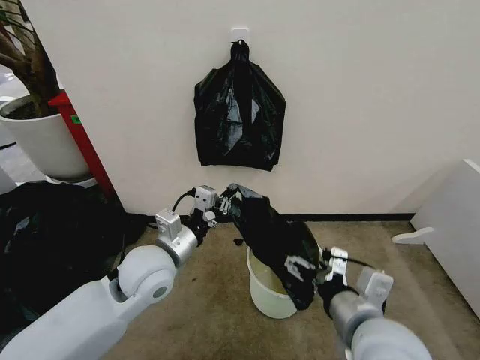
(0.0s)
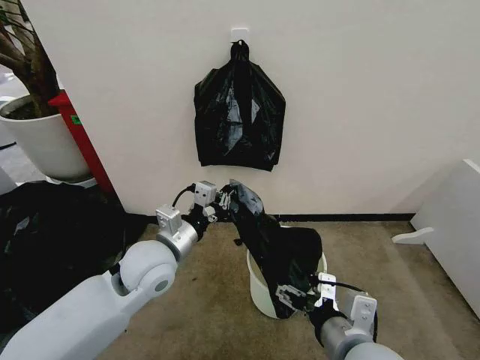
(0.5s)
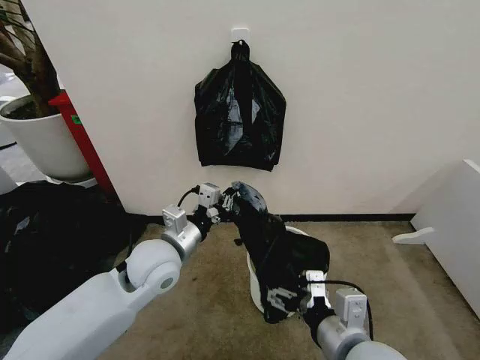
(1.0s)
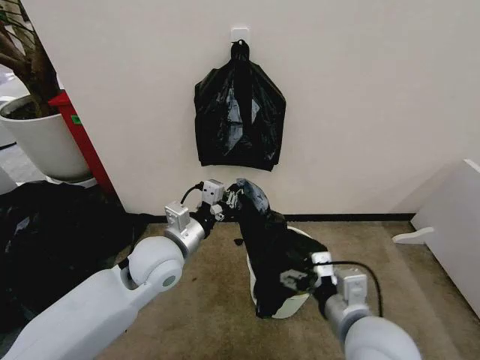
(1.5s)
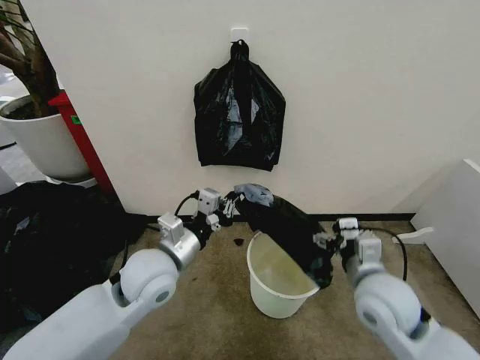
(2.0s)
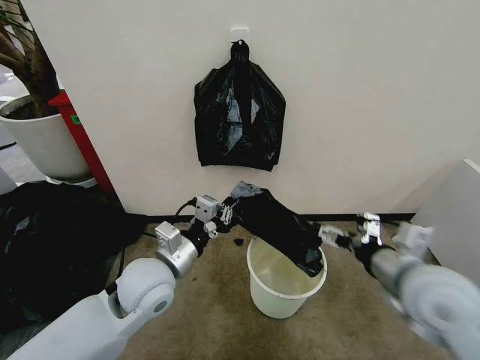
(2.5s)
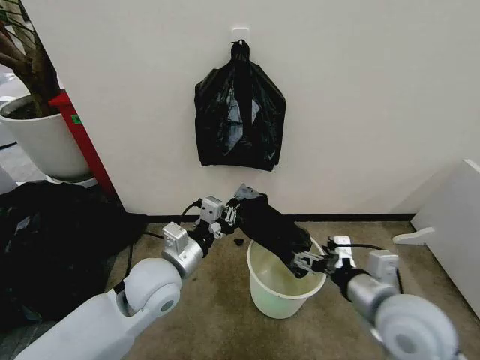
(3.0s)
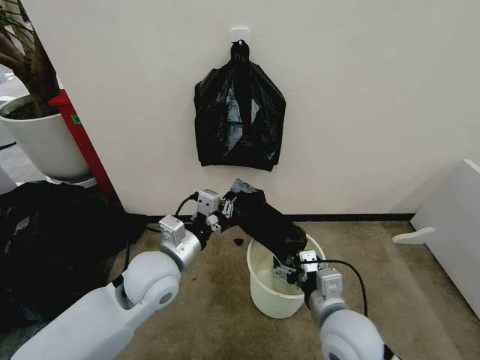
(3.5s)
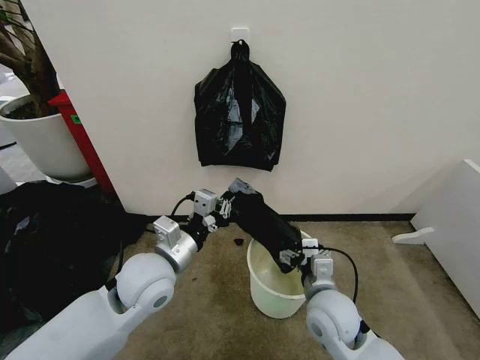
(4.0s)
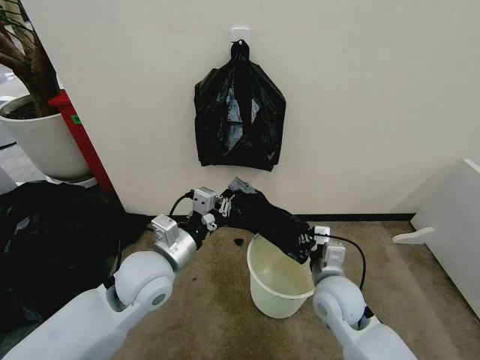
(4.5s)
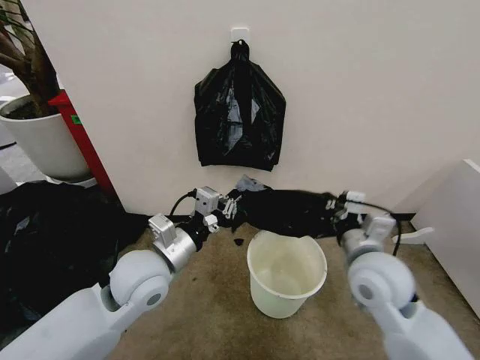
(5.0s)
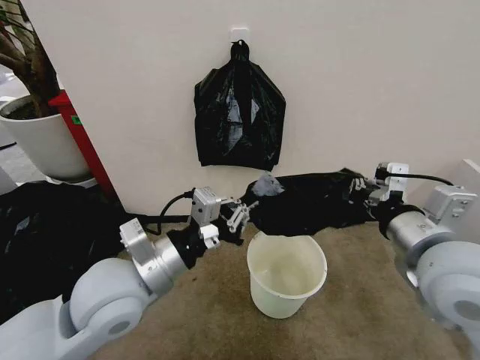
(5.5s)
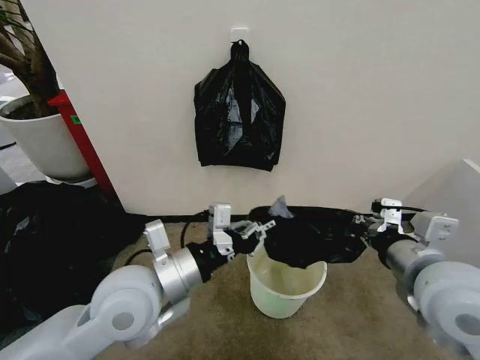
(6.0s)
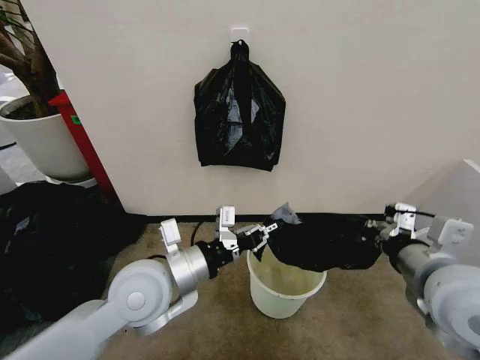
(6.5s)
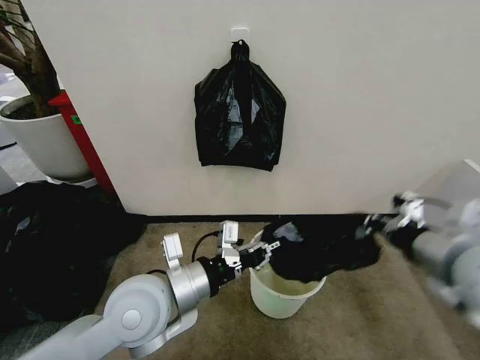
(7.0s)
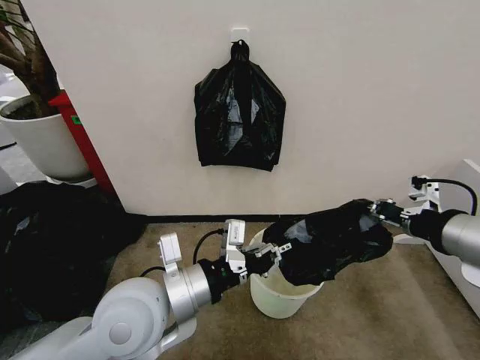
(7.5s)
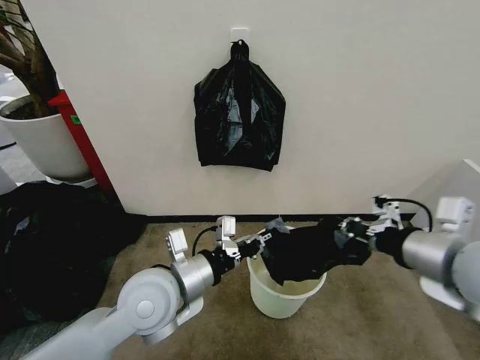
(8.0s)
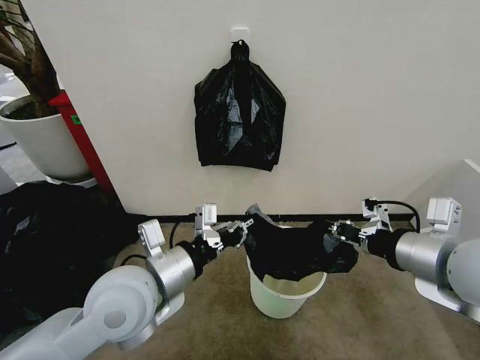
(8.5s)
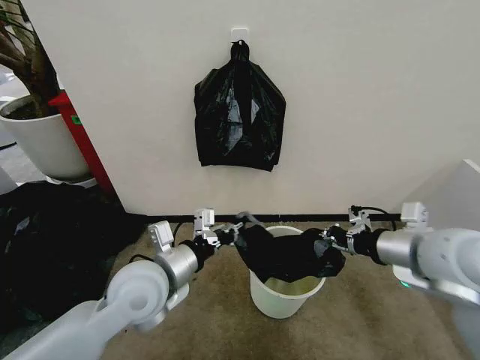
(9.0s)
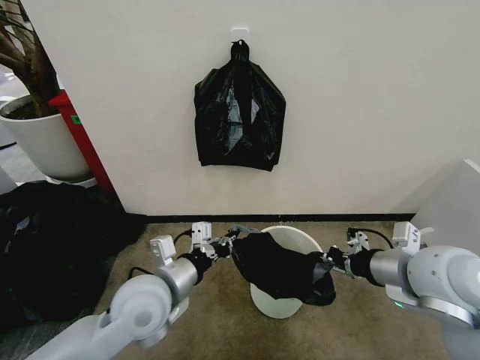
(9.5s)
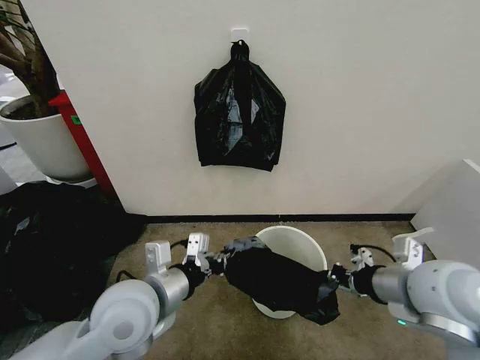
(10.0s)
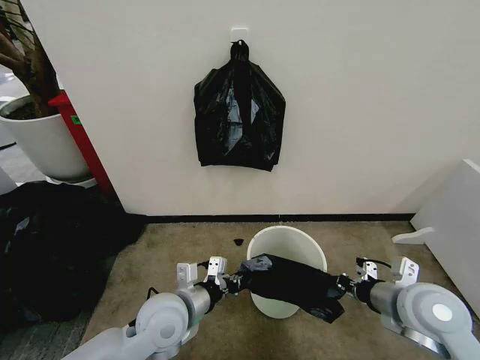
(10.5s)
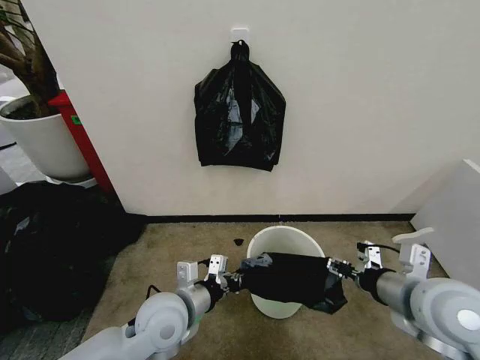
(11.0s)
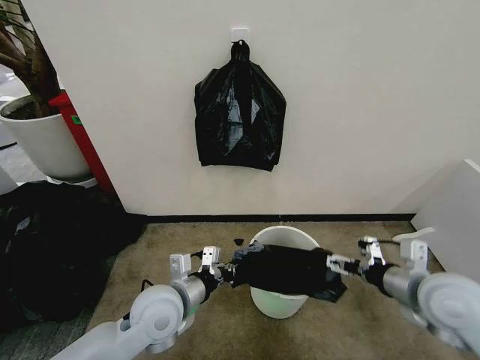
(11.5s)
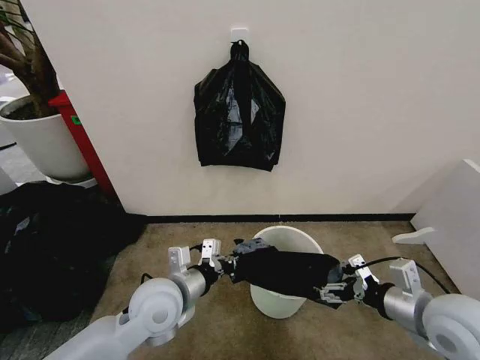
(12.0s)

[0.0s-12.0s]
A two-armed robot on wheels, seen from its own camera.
Task of the whole recording: Place the garbage bag over the trash bin.
0.0s to 2.0s: The right gripper heads forward and to the right, covering approximately 10 cm.
2.0s to 4.0s: The right gripper goes roughly 10 cm to the left and downward.
4.0s to 6.0s: The right gripper heads upward and to the right, covering approximately 20 cm, and closes up. The left gripper heads upward and backward, covering some 10 cm.
8.0s to 10.0s: The right gripper moves downward, approximately 10 cm.
10.0s to 12.0s: The left gripper goes some 5 cm downward. Meanwhile the right gripper moves up and down over about 10 cm, changing direction 2 times, and opens up.

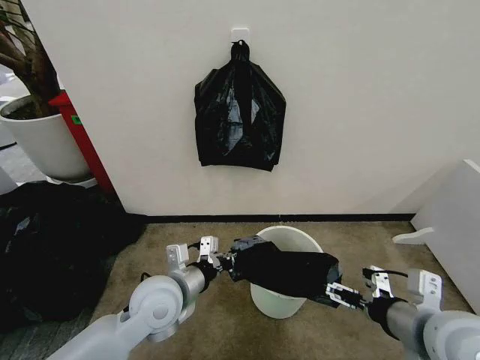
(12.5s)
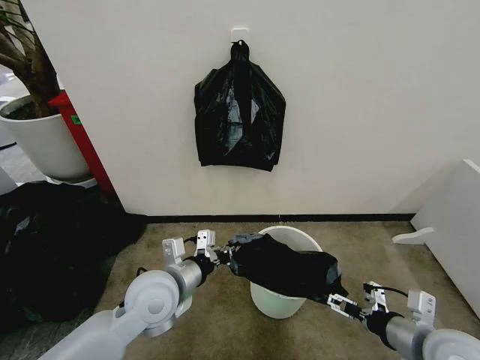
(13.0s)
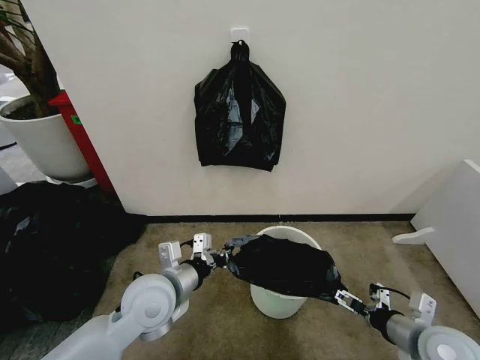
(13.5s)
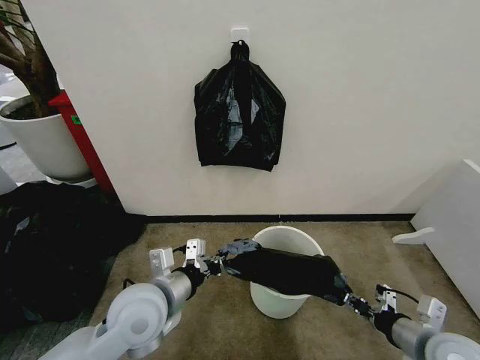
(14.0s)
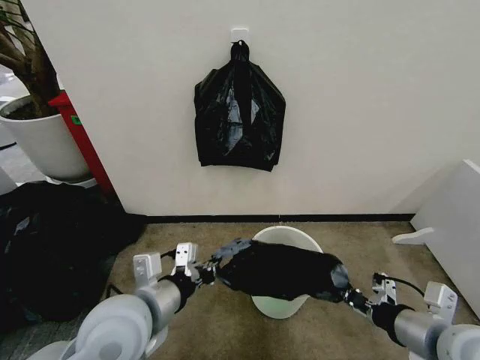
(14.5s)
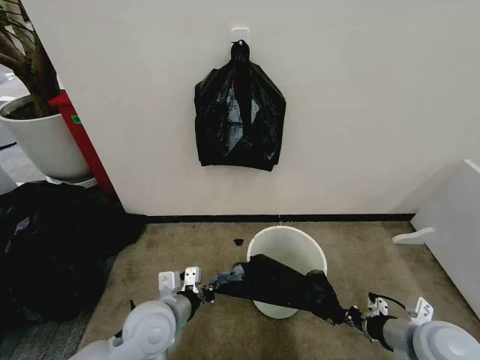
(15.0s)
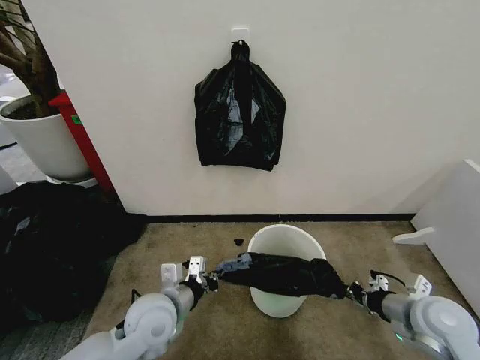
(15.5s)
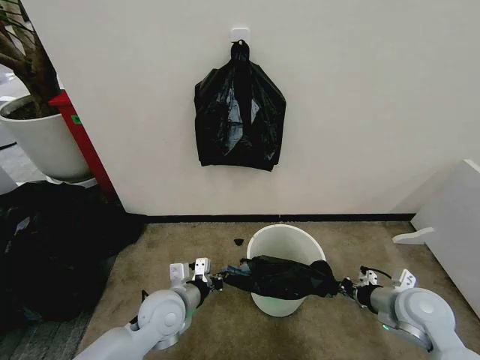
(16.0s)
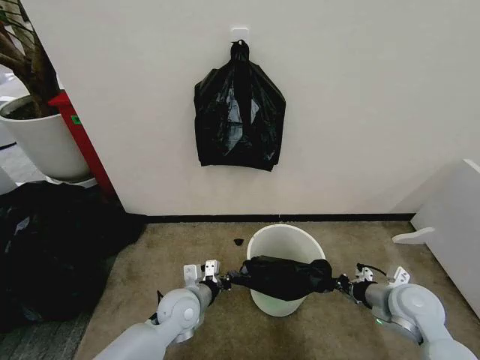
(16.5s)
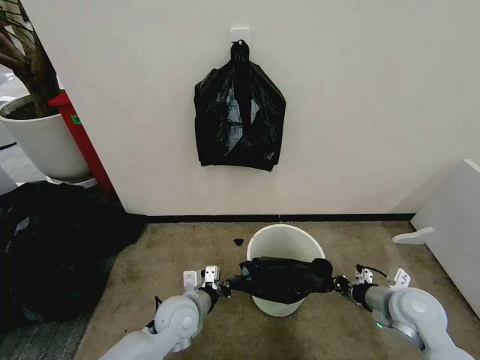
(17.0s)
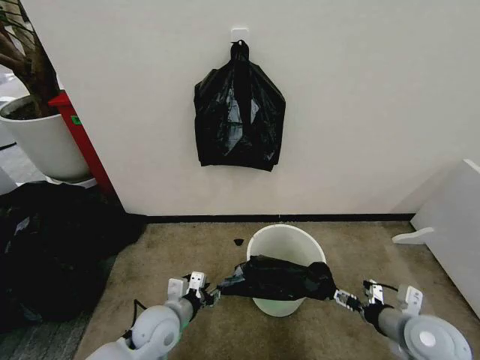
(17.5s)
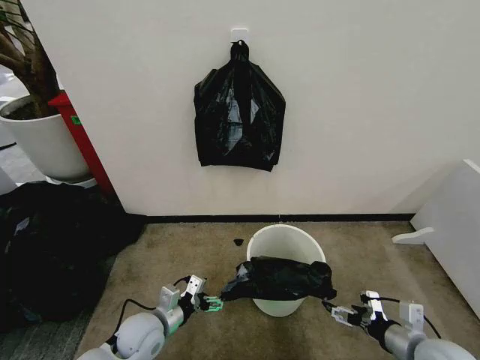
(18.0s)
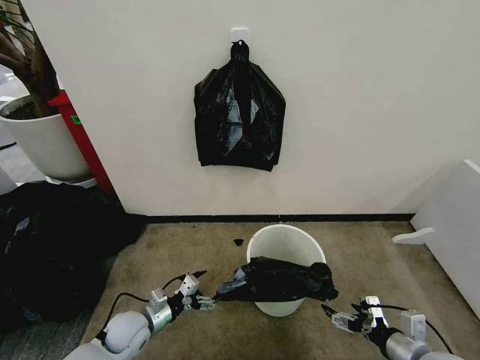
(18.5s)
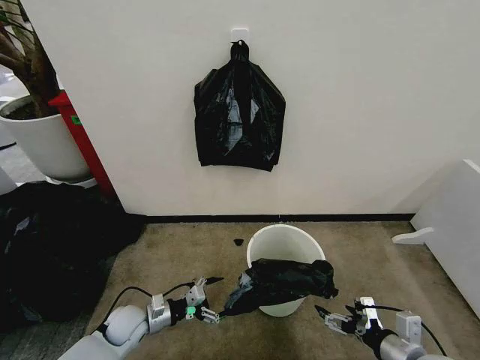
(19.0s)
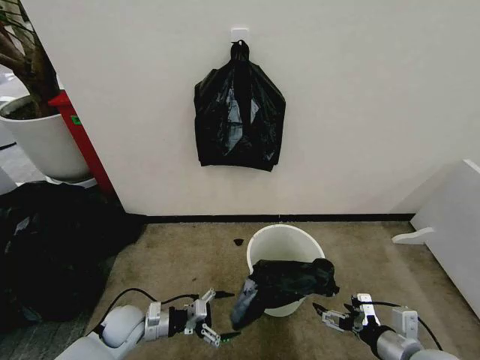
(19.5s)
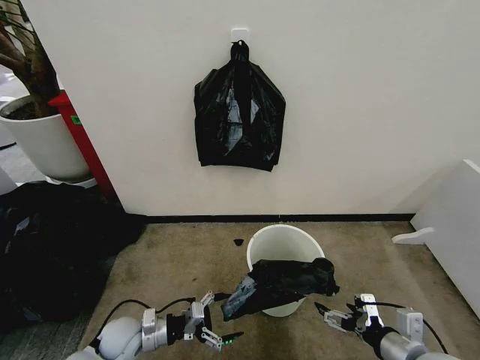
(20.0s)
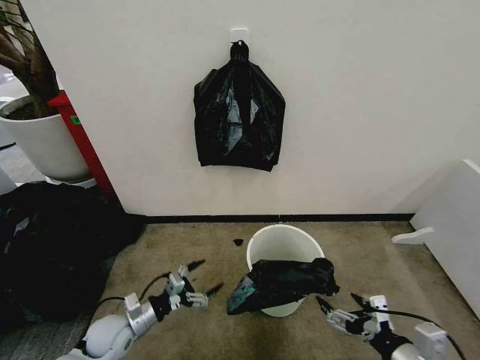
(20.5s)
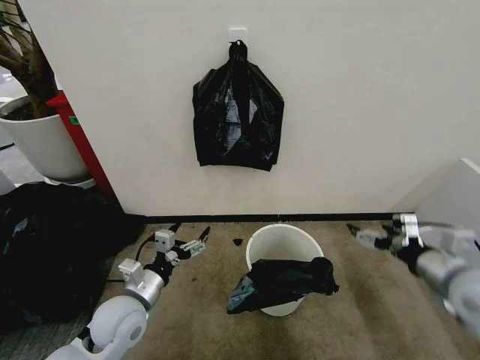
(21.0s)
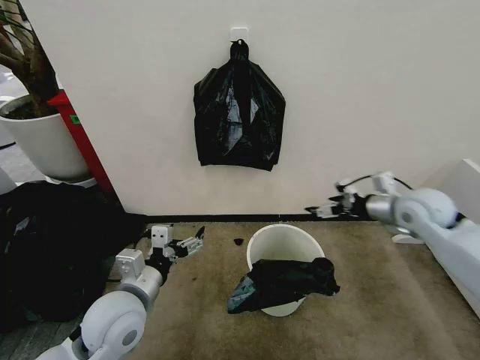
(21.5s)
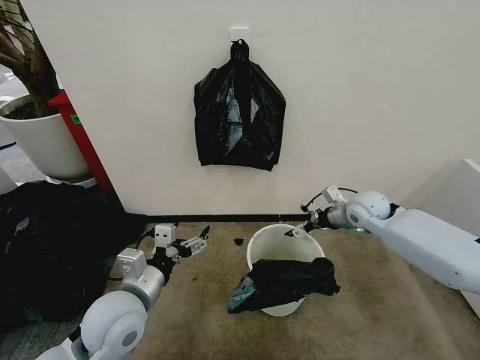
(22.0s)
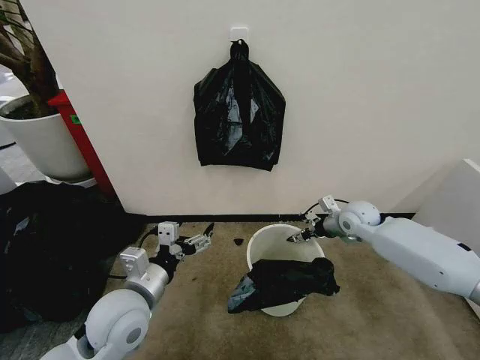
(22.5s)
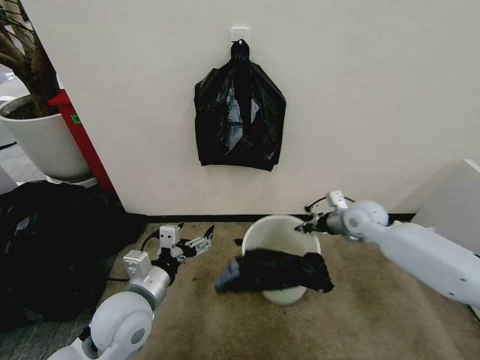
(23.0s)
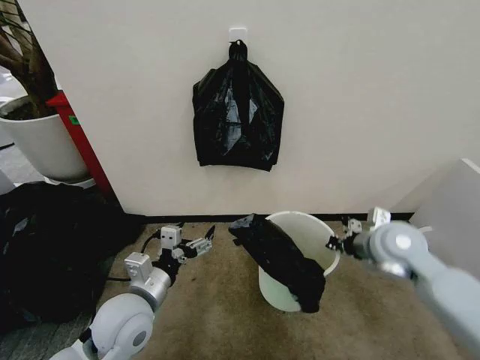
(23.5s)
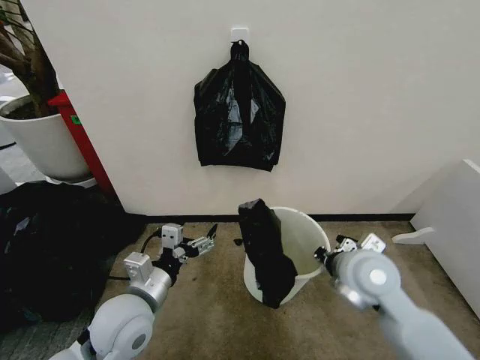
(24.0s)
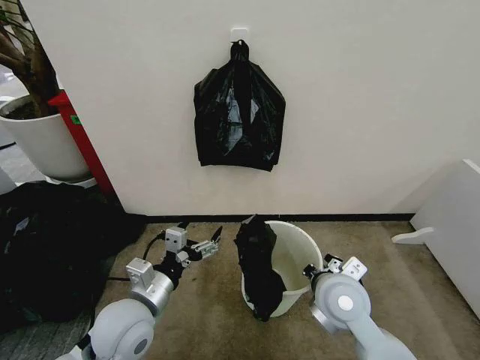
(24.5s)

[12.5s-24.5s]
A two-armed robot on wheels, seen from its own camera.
Task of the whole recording: Place the garbage bag over the trash bin.
12.5s to 14.5s: The left gripper moves upward and backward, approximately 10 cm, while the right gripper reaches some 15 cm downward, then returns, and closes up.
14.5s to 16.5s: The two grippers go about 20 cm downward and forward.
16.5s to 18.5s: The right gripper heads backward, covering approximately 10 cm, and opens. Meanwhile the left gripper moves to the left and downward, roughly 15 cm, and opens its fingers.
18.5s to 20.5s: The right gripper moves upward, roughly 10 cm.
20.5s to 22.5s: The right gripper is displaced forward by roughly 40 cm, and closes its fingers. Meanwhile the left gripper heads upward and to the right, covering roughly 20 cm.
22.5s to 24.5s: The right gripper goes approximately 25 cm backward and to the left, and closes.

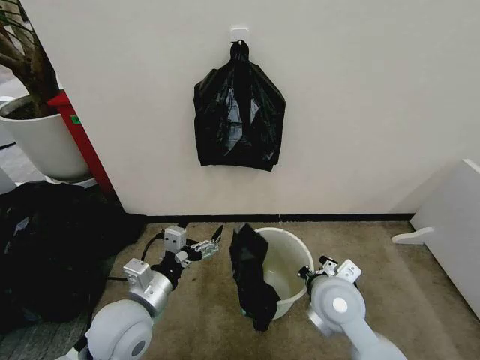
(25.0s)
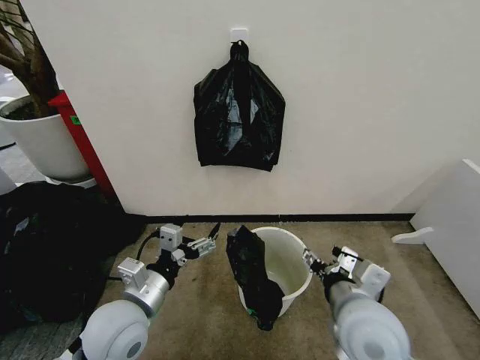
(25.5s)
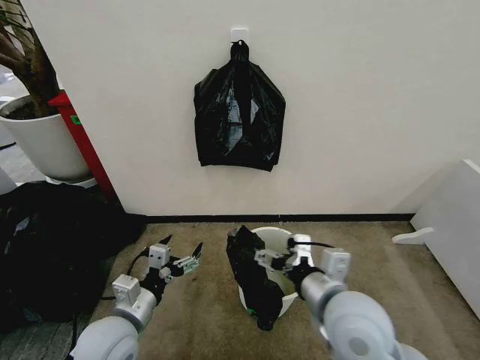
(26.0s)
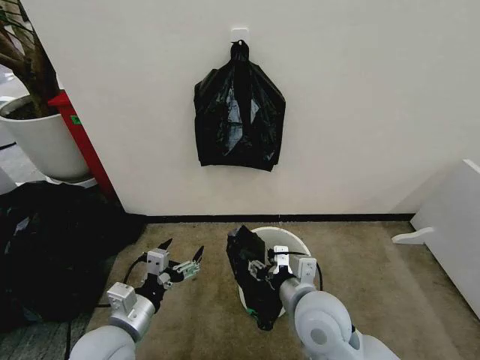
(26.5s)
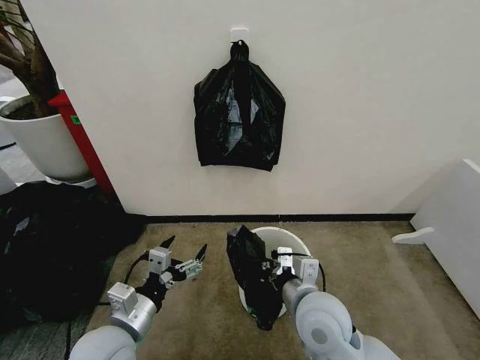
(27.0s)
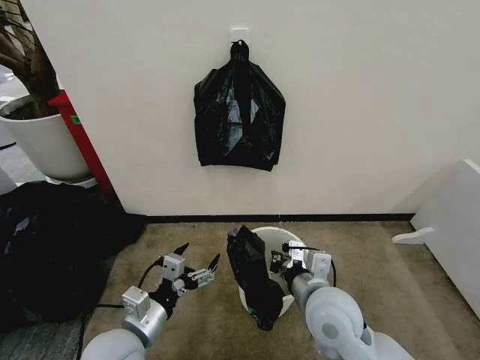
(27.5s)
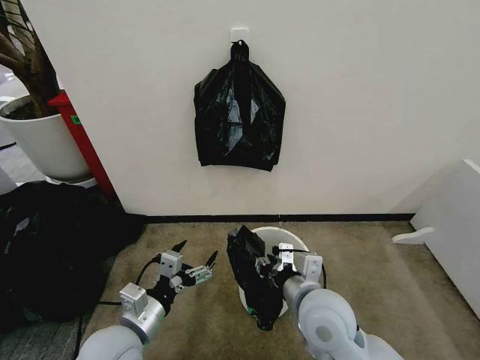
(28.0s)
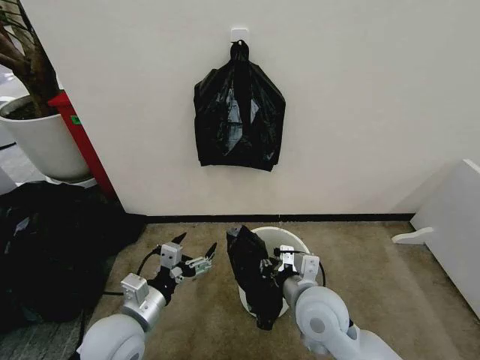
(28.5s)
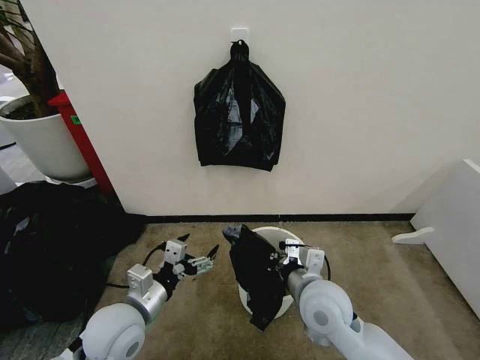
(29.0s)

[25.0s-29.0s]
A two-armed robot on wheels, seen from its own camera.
Task of the whole recording: Place the garbage bag over the trash bin.
25.0s to 27.0s: The right gripper opens and closes again.
27.0s to 29.0s: The right gripper opens, then closes again.
